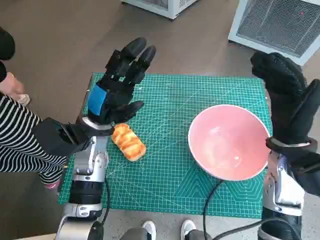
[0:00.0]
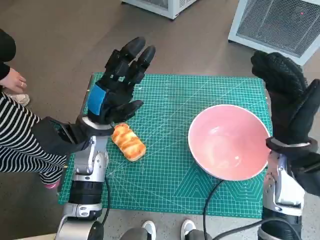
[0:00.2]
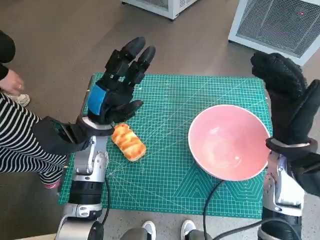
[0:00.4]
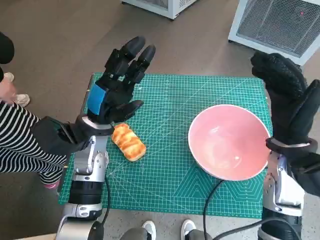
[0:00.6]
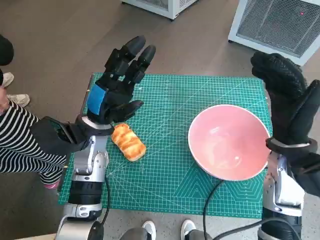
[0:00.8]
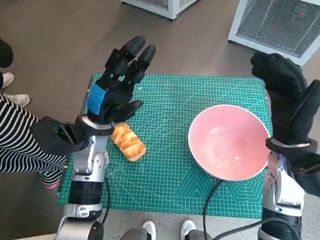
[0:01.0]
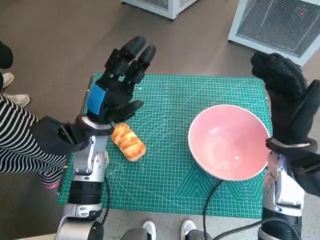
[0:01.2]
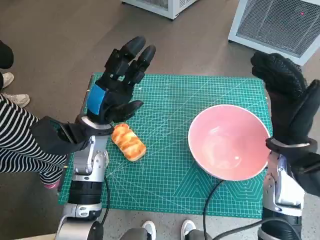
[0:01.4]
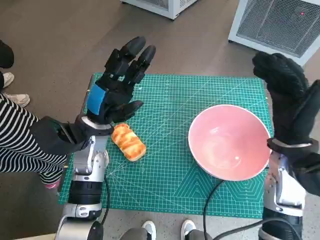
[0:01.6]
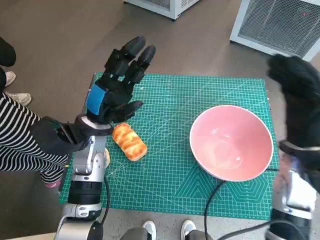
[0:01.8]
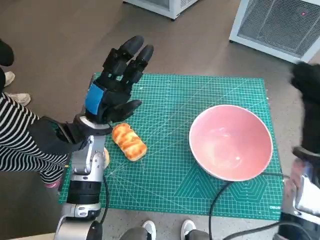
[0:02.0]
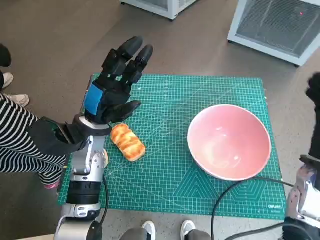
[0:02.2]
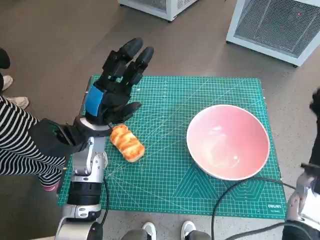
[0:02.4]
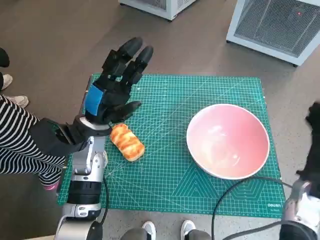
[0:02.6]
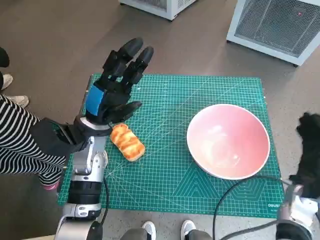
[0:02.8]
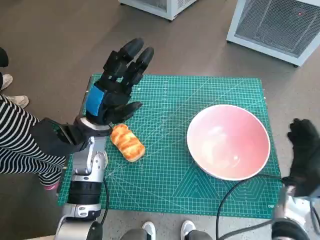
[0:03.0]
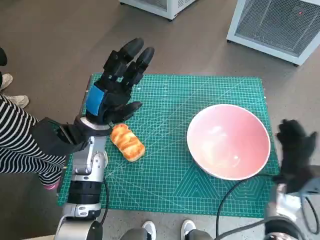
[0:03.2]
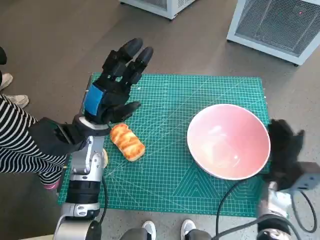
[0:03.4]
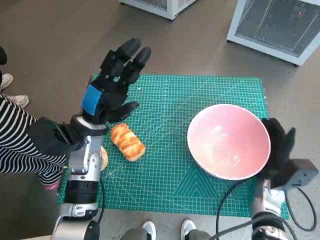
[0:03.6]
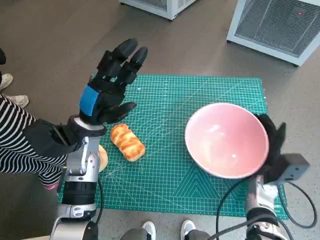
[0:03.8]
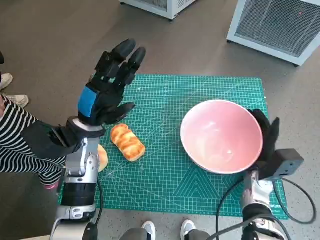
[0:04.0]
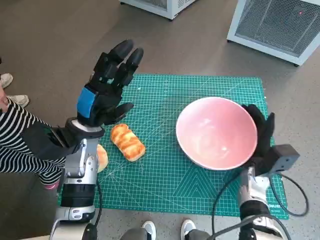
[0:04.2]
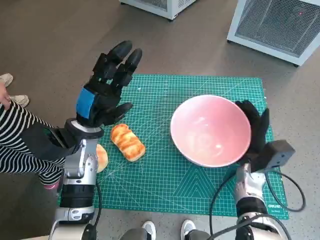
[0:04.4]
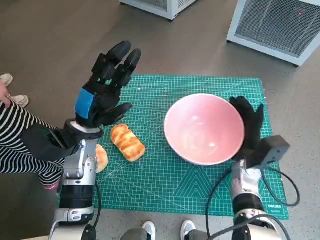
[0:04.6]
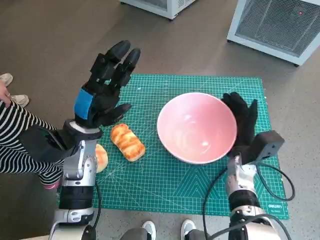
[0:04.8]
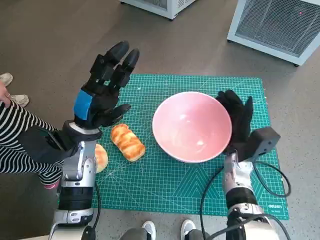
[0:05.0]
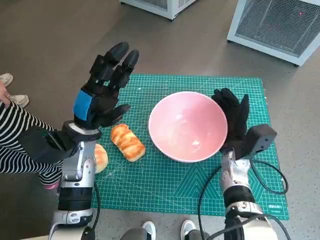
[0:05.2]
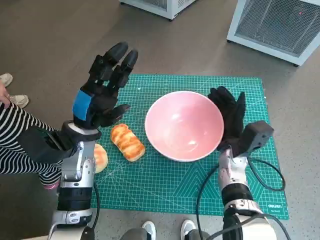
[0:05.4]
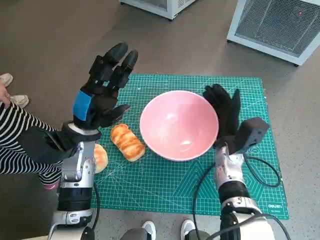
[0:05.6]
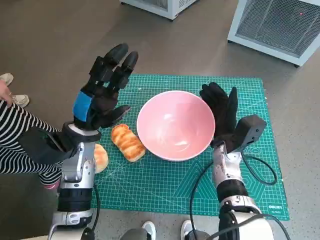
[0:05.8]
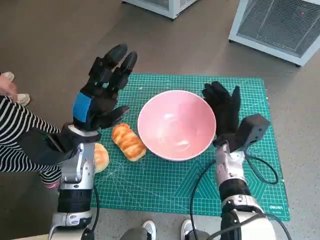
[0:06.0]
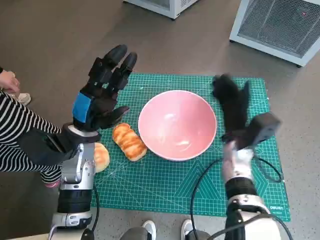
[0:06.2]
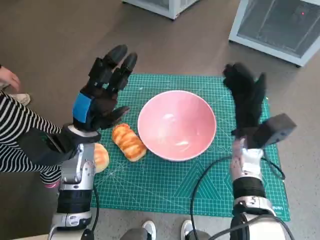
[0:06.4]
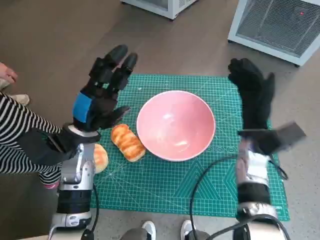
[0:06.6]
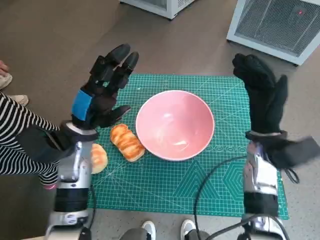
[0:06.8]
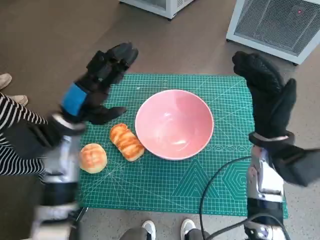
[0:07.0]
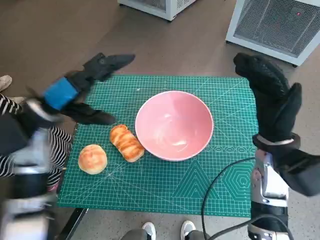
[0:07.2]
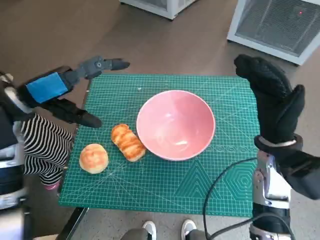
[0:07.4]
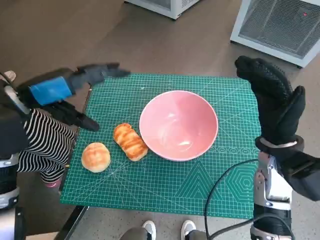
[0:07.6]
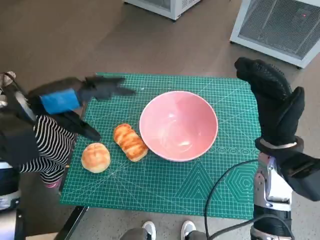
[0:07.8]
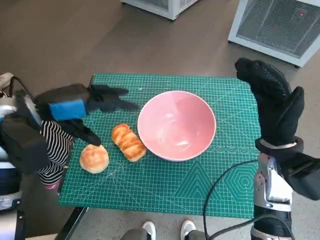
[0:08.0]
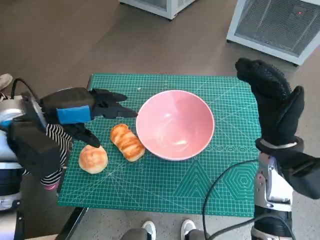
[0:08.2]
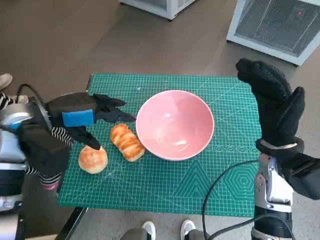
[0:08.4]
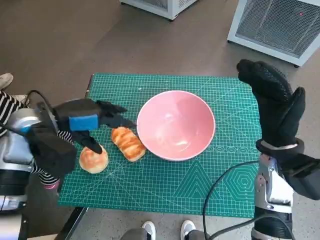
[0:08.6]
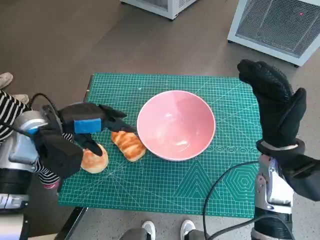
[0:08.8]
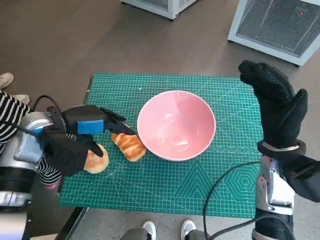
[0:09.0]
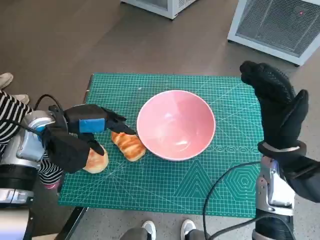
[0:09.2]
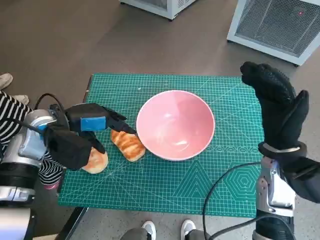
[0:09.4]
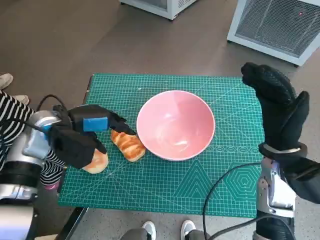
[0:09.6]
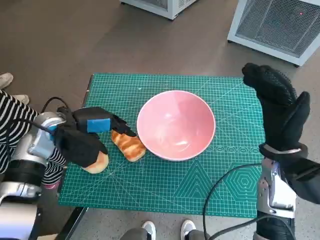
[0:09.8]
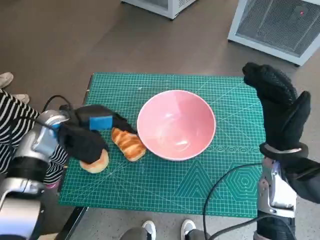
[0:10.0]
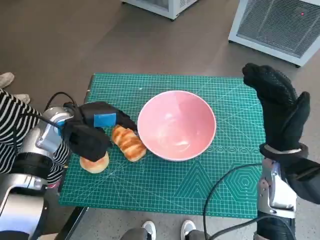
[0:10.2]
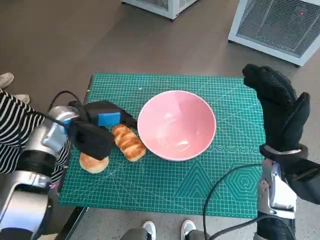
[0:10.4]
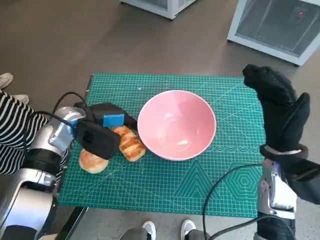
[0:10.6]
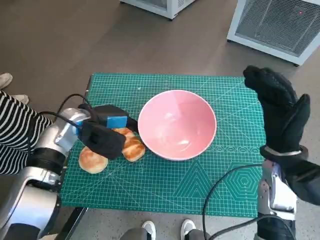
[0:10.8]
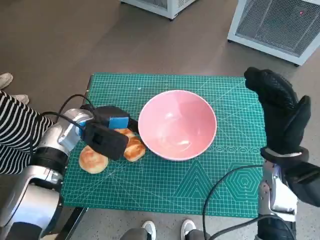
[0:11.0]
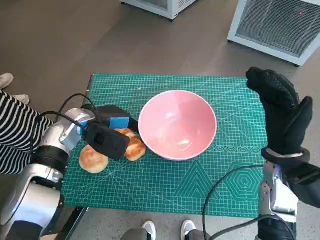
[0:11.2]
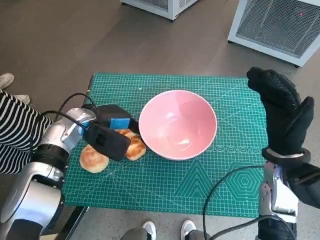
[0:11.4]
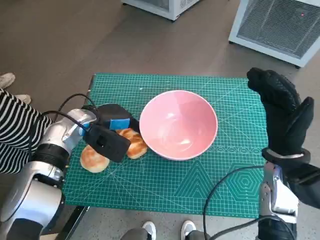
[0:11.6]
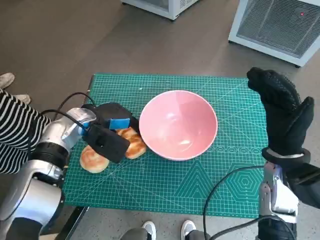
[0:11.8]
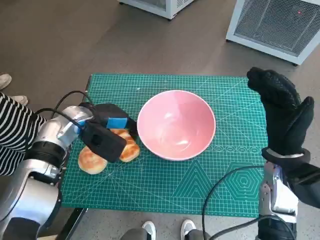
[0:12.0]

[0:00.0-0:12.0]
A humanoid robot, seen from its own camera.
Task of the whole recording: Push the bowl into the center of the table and put the bread into the bowl.
Step, 0:00.0 to 0:06.2: Move the pink bowl to the center of table with right hand.
Step, 0:06.4 to 0:11.4: Grasp the long bread with left hand.
0:01.6 to 0:03.0: The right hand heads downward and to the right, covering about 15 cm.
0:03.0 to 0:04.4: The right hand goes some 10 cm to the left.
0:04.4 to 0:06.0: The right hand moves to the left, about 5 cm.
0:06.0 to 0:07.6: The left hand heads upward and to the left, covering roughly 15 cm. Meanwhile the right hand shifts roughly 10 cm upward and to the right.
0:07.6 to 0:09.0: The left hand shifts about 10 cm downward.
0:09.0 to 0:10.4: There are only small adjustments of the hands.
0:10.4 to 0:12.0: The hands move only a little.

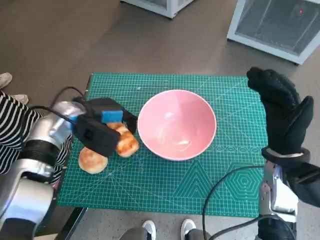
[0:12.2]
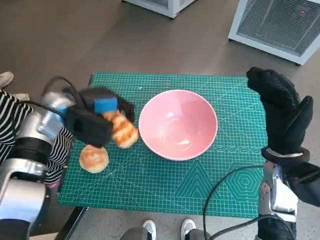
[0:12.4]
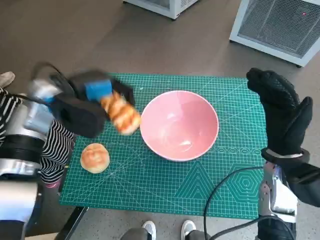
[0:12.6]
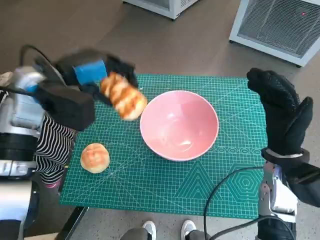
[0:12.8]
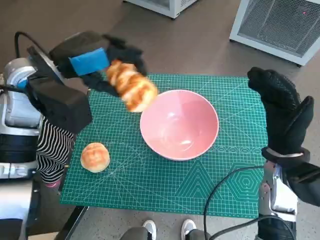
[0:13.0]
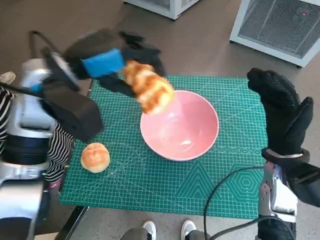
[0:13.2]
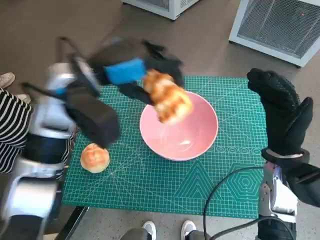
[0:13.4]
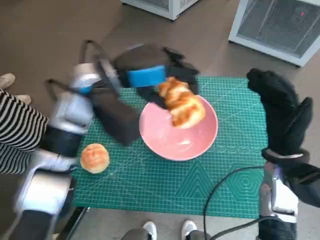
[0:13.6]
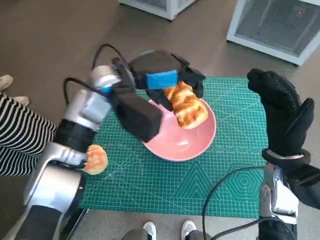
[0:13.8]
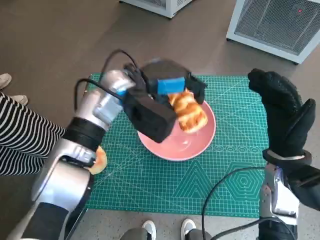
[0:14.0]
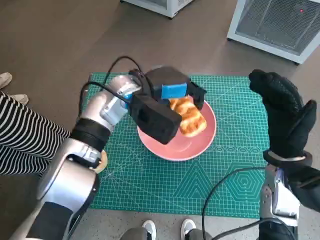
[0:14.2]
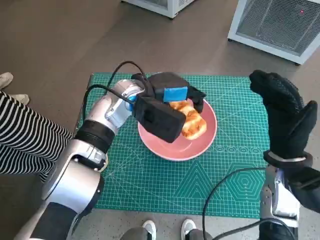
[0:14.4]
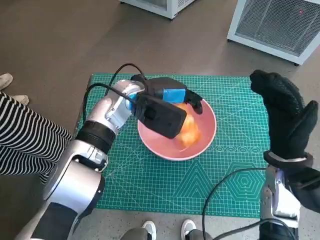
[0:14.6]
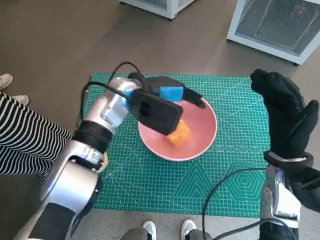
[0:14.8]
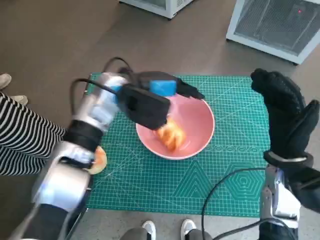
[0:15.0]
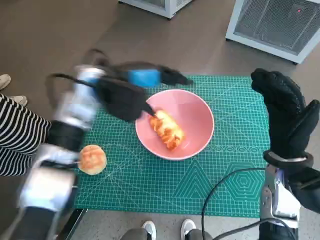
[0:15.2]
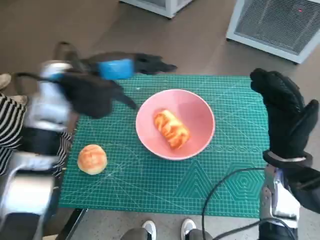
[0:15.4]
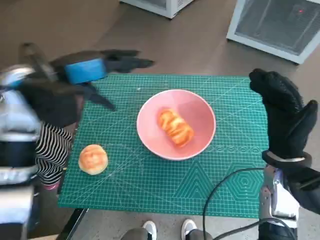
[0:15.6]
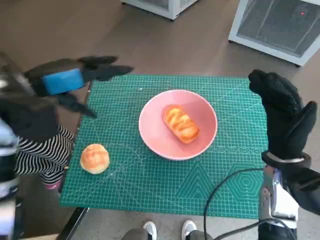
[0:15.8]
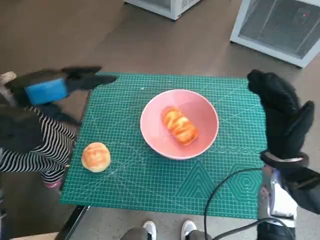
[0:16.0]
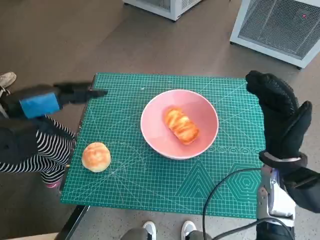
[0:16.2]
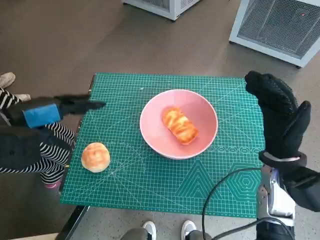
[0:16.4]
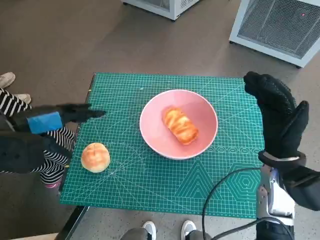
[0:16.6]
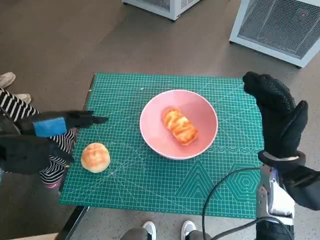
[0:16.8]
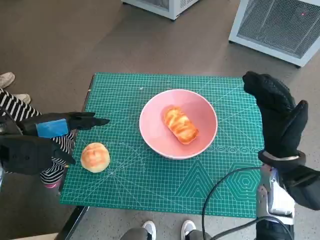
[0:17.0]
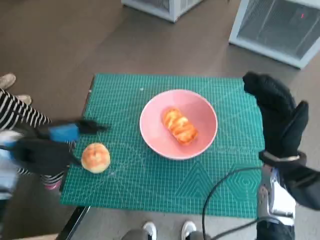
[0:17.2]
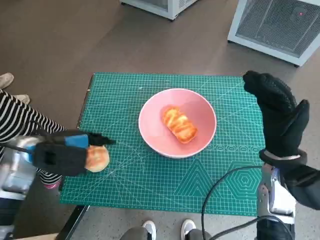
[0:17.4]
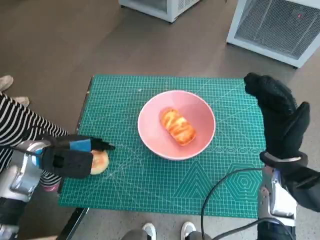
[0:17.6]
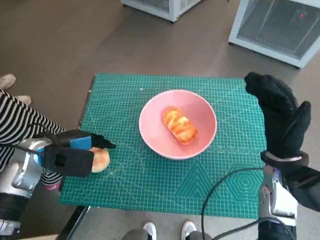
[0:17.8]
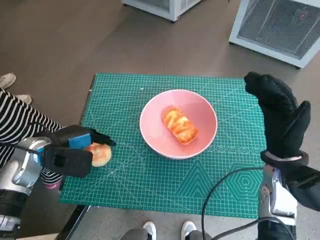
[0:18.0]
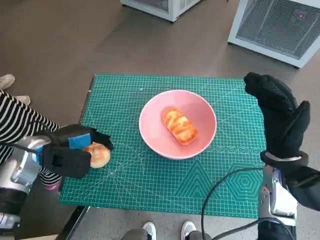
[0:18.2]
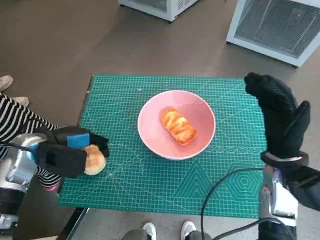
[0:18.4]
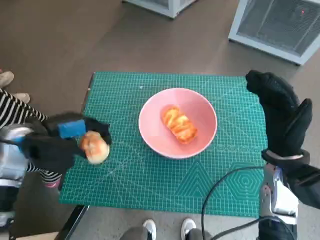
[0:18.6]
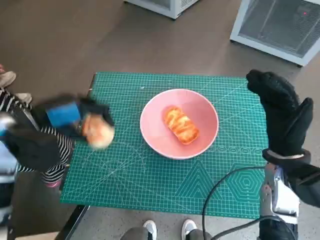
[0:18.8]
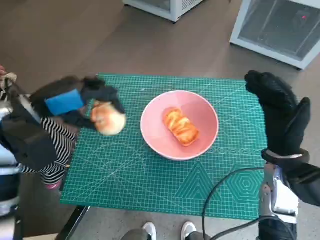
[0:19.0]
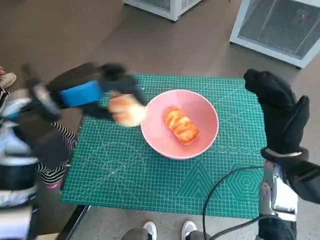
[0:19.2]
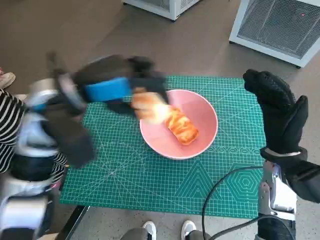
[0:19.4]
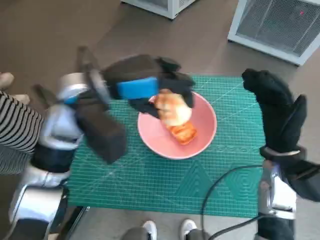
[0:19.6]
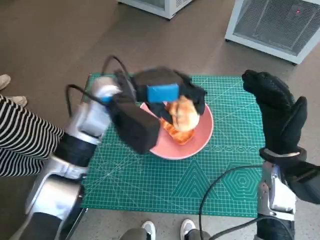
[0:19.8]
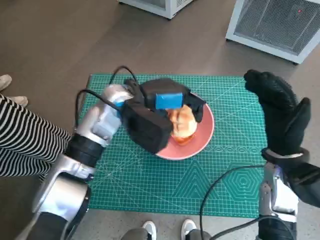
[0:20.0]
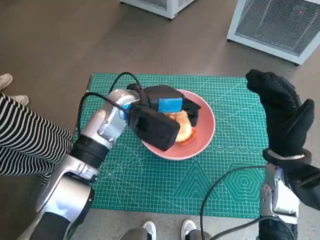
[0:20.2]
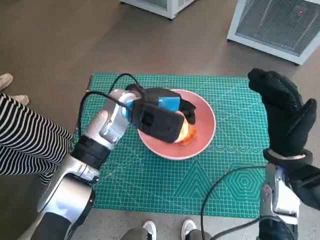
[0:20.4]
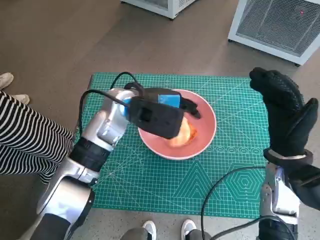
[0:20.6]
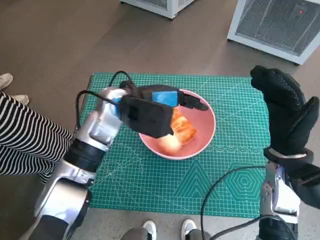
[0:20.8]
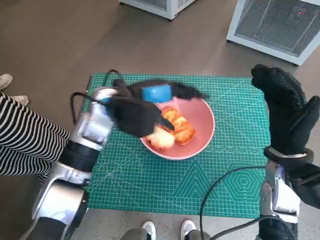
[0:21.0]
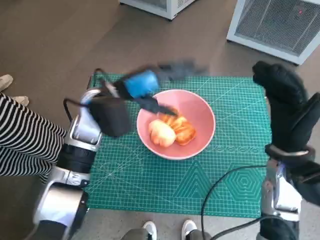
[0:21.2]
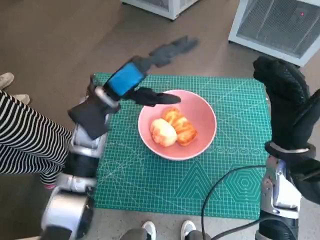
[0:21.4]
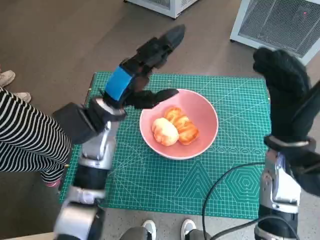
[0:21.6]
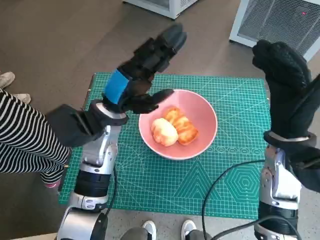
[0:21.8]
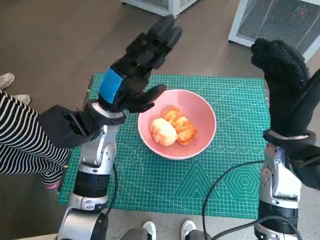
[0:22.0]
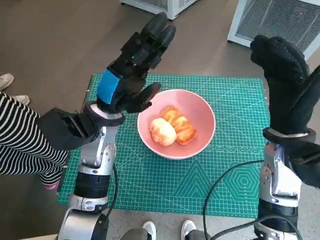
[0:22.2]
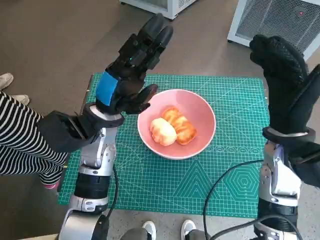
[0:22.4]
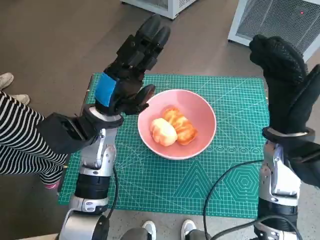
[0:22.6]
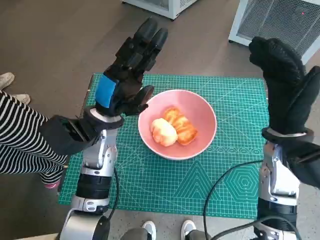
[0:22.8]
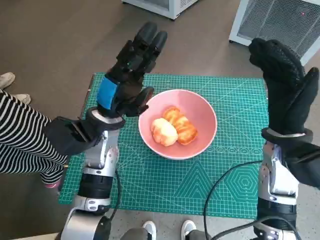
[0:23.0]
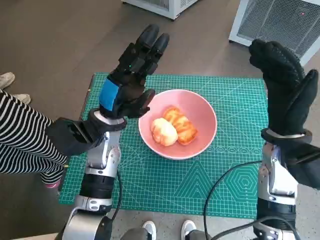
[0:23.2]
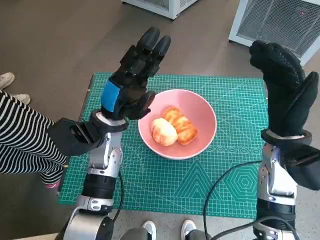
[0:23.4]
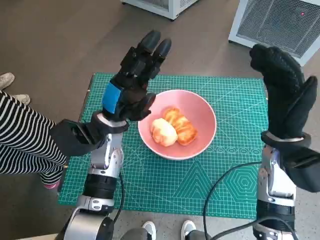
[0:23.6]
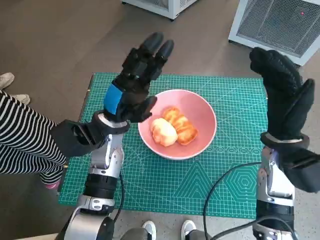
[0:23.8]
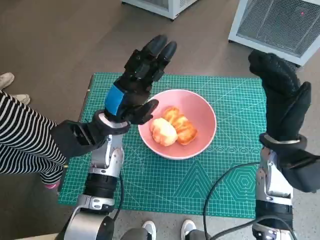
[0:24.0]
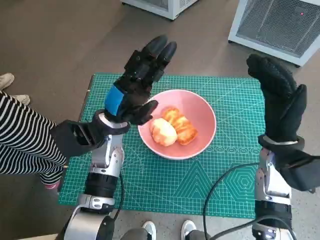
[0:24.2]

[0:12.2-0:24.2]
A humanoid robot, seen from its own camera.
Task of the whole recording: Push the bowl into the center of the table and put the bread into the bowl.
Step, 0:12.2 to 0:14.8: Place the long bread in pink bowl with left hand.
Step, 0:15.0 to 0:18.0: Grasp the round bread with left hand.
Step, 0:18.2 to 0:20.8: Place the round bread in pink bowl with left hand.
0:12.2 to 0:13.8: The left hand heads to the right and upward, covering some 15 cm.
0:15.2 to 0:16.6: The left hand travels to the left and backward by approximately 20 cm.
0:16.6 to 0:18.2: The left hand travels downward by roughly 10 cm.
0:18.2 to 0:19.8: The left hand moves to the right and upward, about 20 cm.
